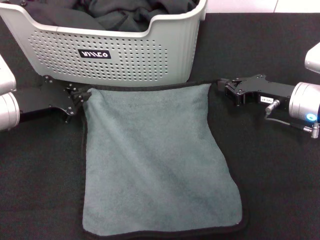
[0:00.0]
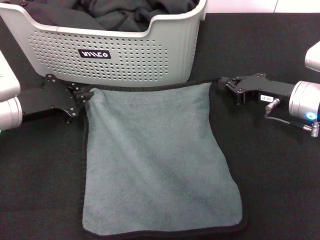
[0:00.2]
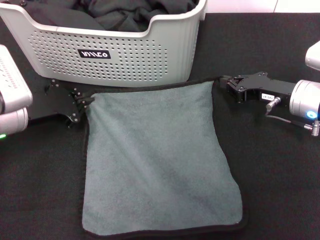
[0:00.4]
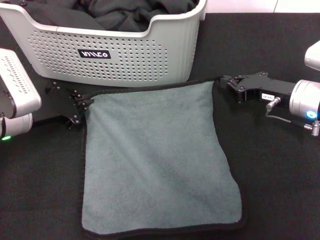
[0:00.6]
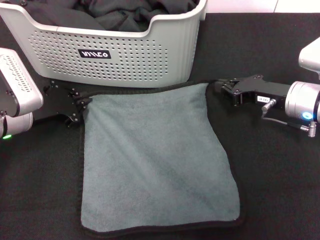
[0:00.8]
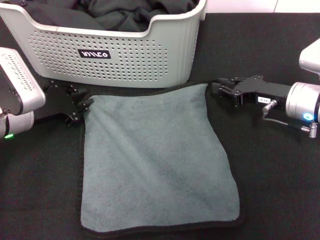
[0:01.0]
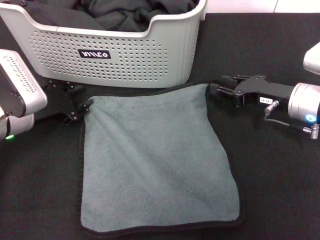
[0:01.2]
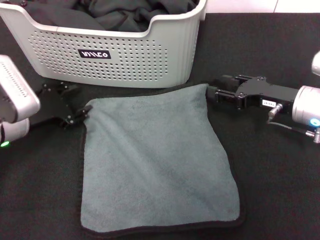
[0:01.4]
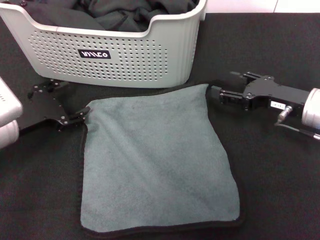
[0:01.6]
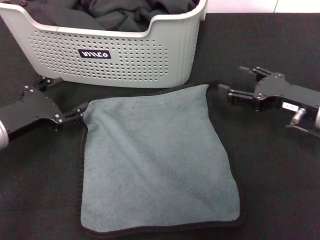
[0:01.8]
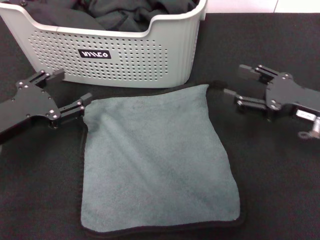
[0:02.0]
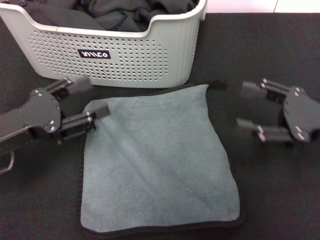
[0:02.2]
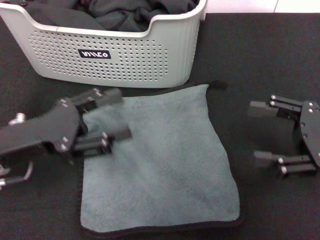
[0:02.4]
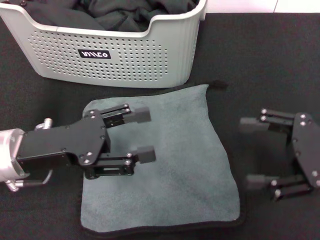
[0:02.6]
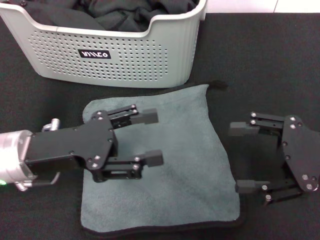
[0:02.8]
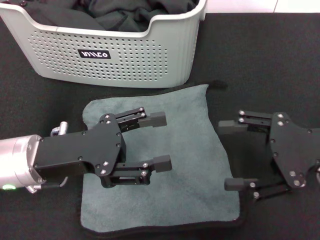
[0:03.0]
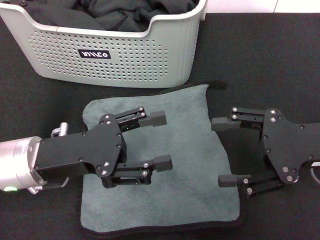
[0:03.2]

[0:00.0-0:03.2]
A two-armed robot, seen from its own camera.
Task of the whole recording: pick up the towel from the storage box and lay it flat on the black tablecloth.
0:00.0 to 0:01.6: The right gripper opens its fingers. The left gripper opens.
0:01.6 to 0:03.2: The right gripper travels backward and upward by some 10 cm, while the left gripper goes roughly 5 cm to the right.

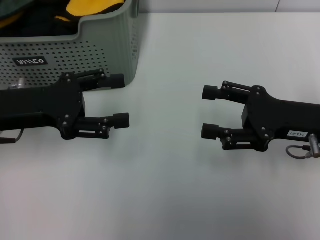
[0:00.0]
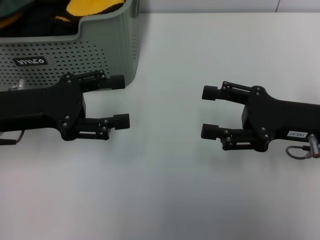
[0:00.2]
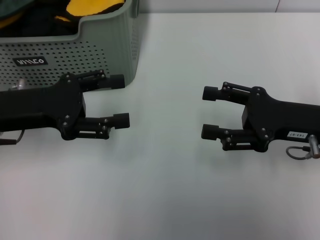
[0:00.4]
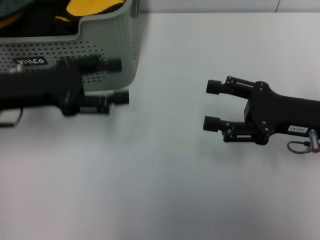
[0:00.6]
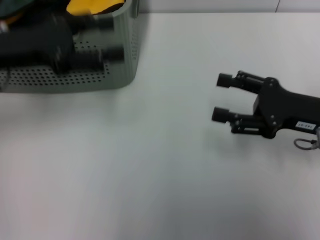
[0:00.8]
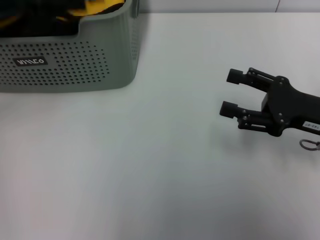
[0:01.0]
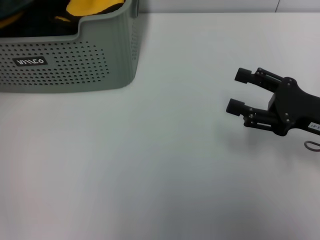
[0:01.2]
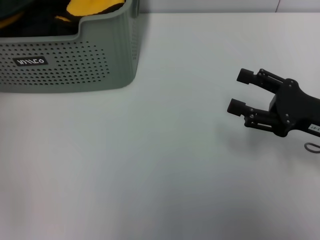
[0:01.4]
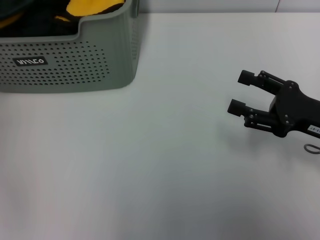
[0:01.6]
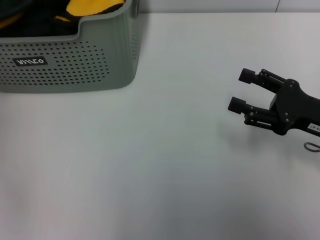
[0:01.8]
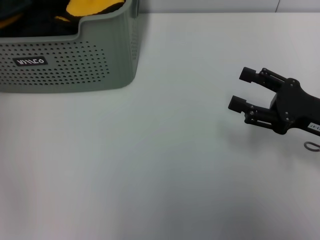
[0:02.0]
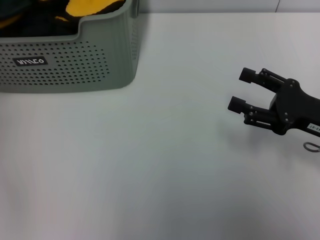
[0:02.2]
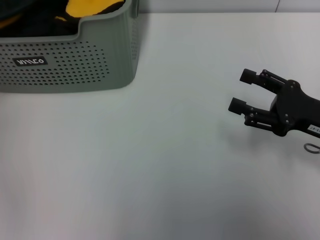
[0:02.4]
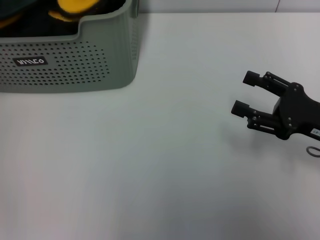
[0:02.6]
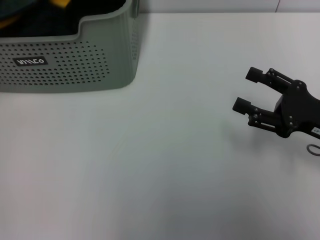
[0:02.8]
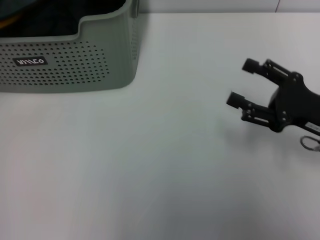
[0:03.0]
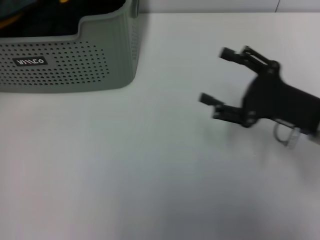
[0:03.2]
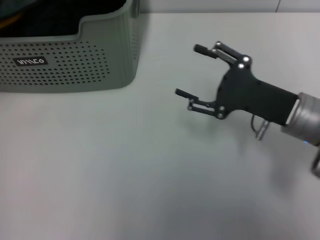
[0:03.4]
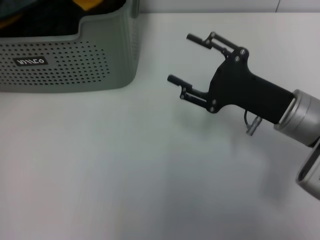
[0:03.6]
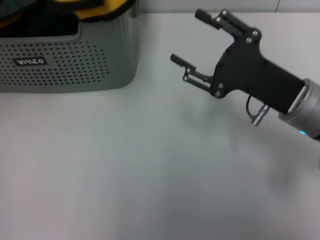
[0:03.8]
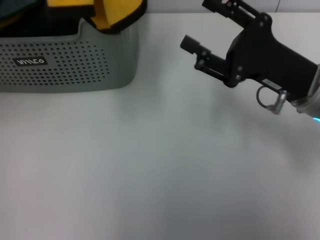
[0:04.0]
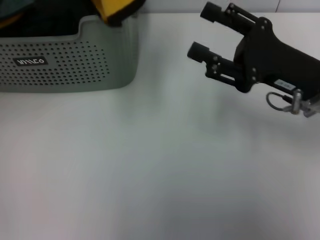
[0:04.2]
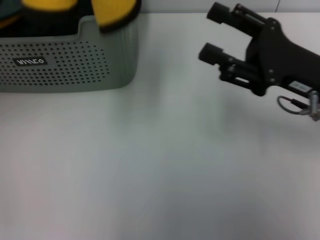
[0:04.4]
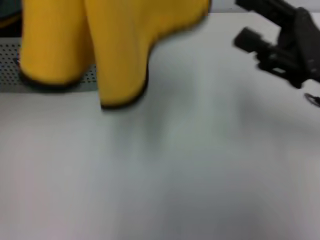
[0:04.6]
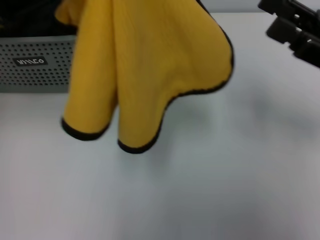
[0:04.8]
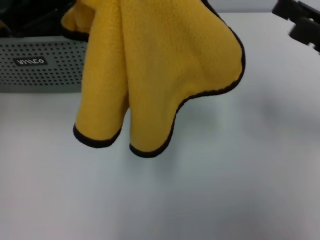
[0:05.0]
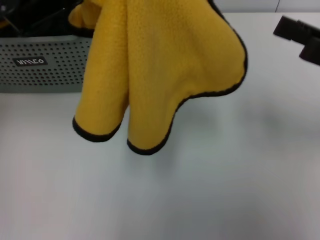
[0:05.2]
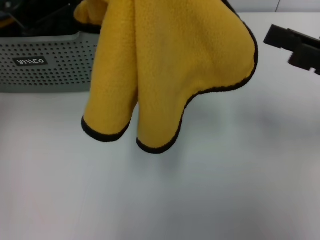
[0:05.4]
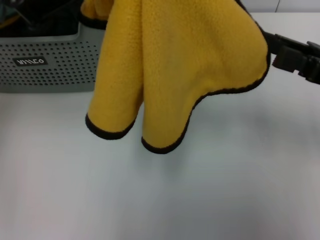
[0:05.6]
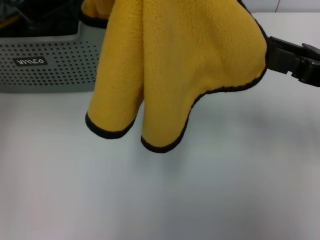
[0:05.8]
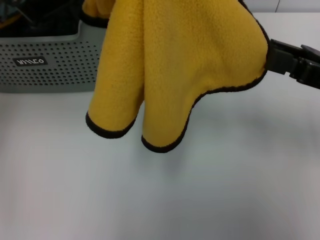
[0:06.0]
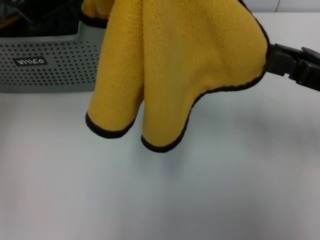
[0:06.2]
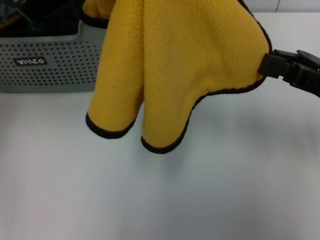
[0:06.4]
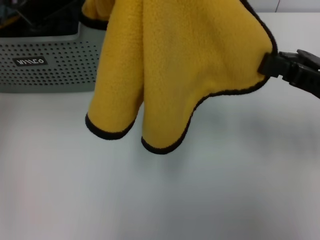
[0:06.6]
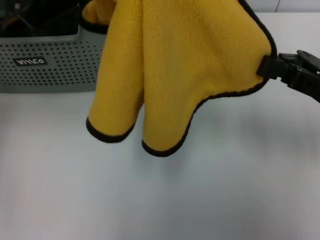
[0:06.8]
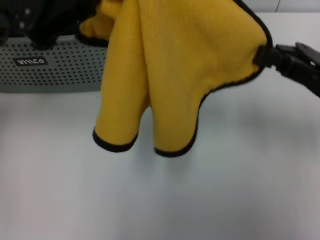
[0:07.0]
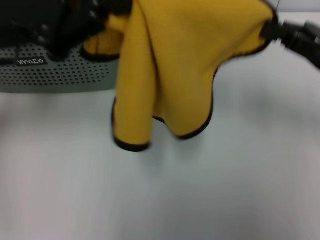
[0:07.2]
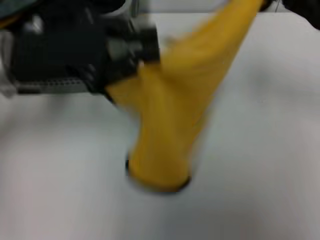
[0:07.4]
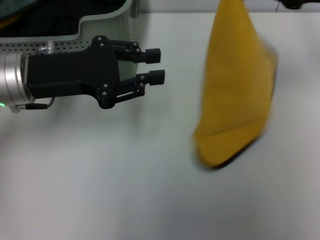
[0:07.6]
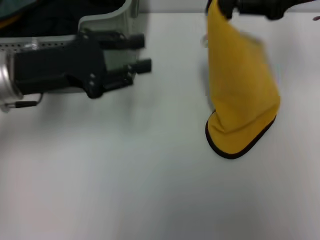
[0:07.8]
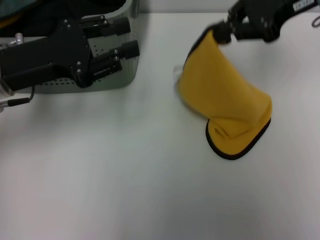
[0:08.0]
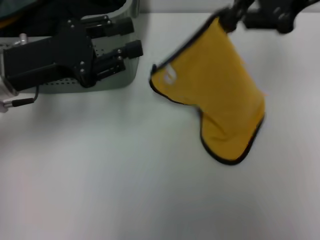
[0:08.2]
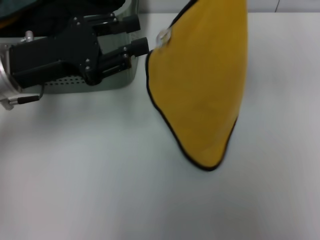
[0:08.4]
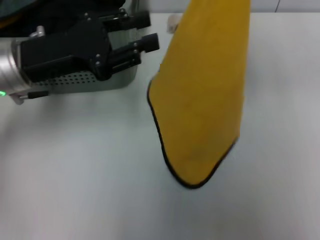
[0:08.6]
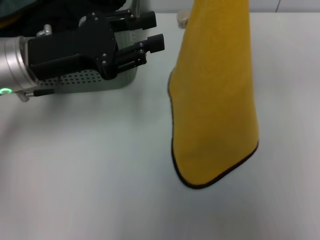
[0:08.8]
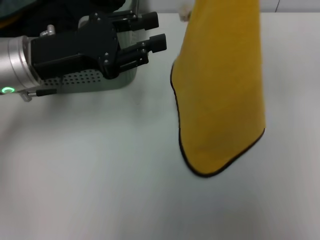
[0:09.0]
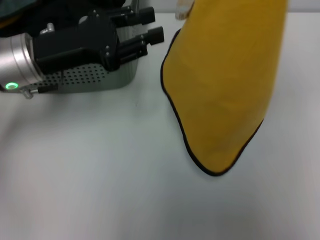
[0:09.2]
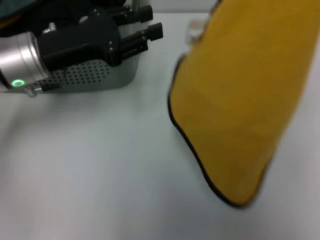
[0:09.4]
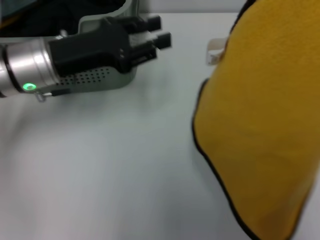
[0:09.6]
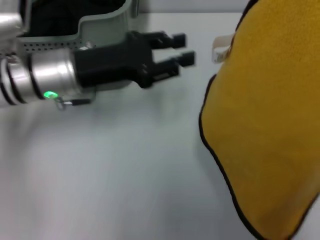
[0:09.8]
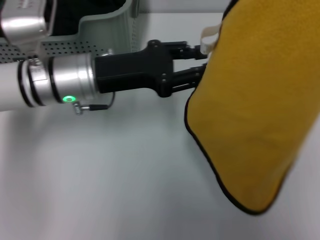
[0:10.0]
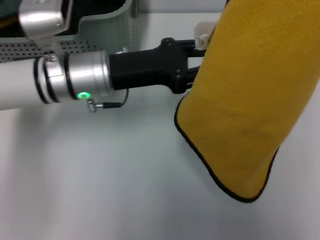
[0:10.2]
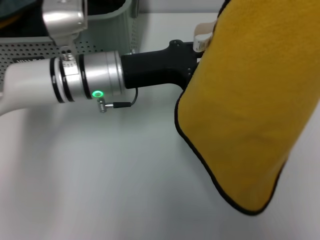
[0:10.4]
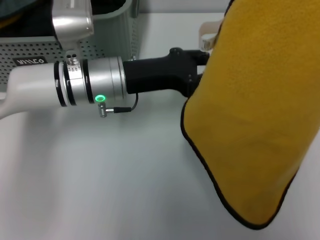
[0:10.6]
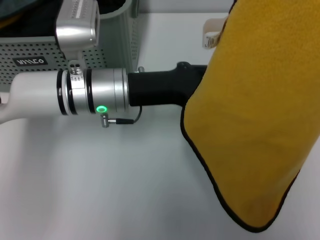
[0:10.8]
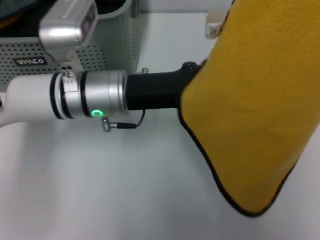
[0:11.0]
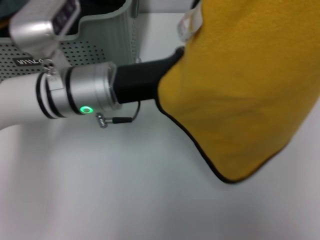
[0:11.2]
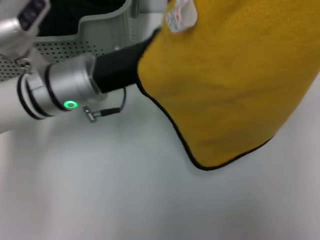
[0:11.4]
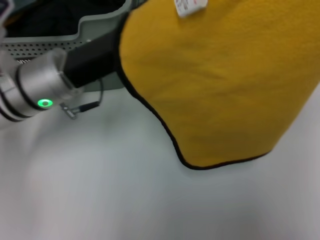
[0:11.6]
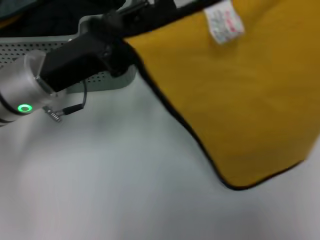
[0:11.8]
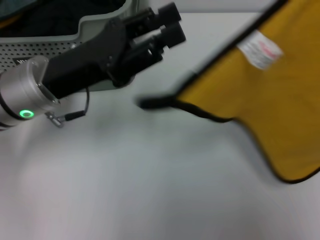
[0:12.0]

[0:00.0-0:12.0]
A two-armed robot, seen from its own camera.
Task of the whole recording: pick up the towel from the storage box and lay it flat on the table.
Step, 0:00.0 to 0:02.2: Pick up a towel with the left gripper.
Step, 0:02.6 to 0:06.6: Spread the towel flat with the left gripper.
0:00.0 to 0:01.6: The left gripper travels forward and upward by roughly 15 cm.
0:01.6 to 0:03.0: The left gripper moves backward and upward, about 10 cm, and closes.
0:03.0 to 0:04.4: The right gripper heads upward and to the left, covering roughly 5 cm.
0:04.4 to 0:06.0: The two grippers go roughly 5 cm to the right.
0:06.0 to 0:07.6: The left gripper is displaced downward by some 10 cm. The right gripper heads forward and upward, covering some 10 cm, and closes up.
0:07.6 to 0:09.0: The right gripper heads upward, covering roughly 10 cm.
0:09.0 to 0:10.4: The left gripper goes roughly 10 cm to the right.
0:10.4 to 0:12.0: The right gripper goes roughly 5 cm to the right, while the left gripper heads to the left and backward, covering roughly 10 cm.

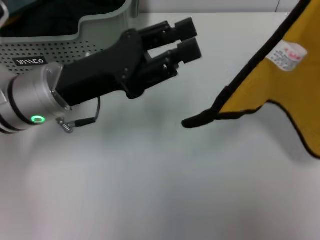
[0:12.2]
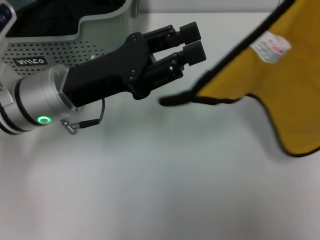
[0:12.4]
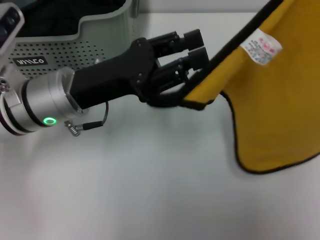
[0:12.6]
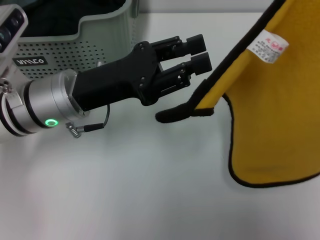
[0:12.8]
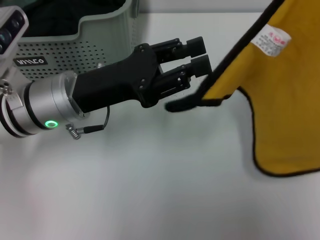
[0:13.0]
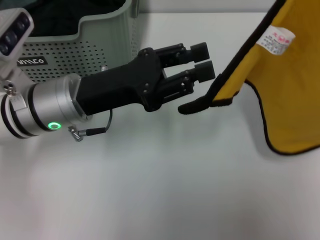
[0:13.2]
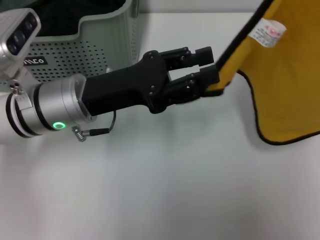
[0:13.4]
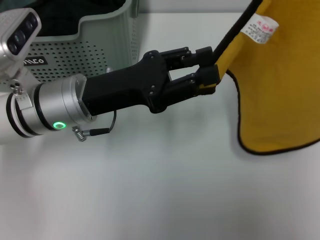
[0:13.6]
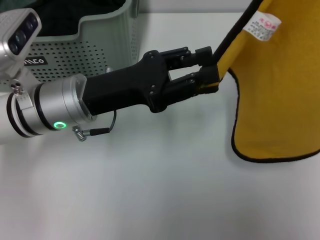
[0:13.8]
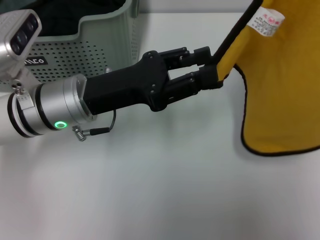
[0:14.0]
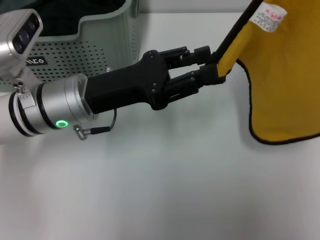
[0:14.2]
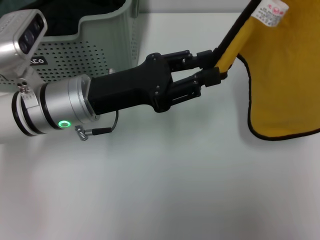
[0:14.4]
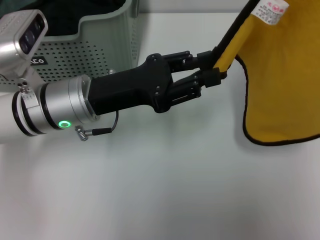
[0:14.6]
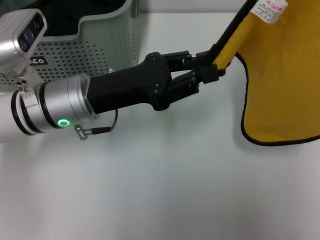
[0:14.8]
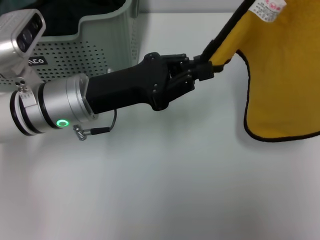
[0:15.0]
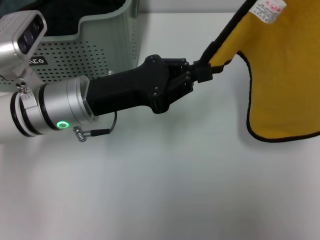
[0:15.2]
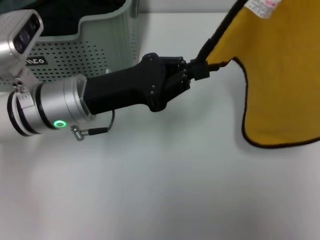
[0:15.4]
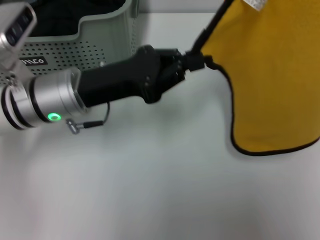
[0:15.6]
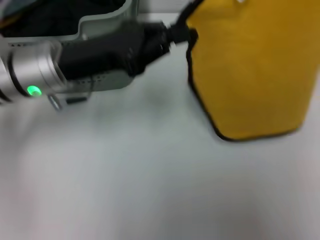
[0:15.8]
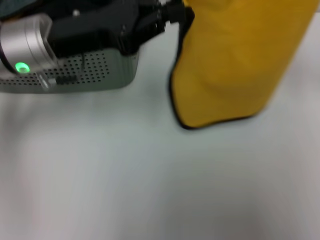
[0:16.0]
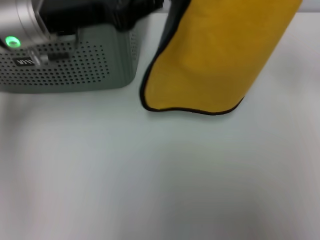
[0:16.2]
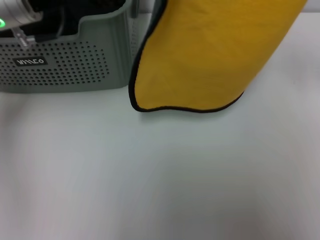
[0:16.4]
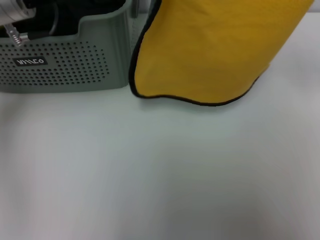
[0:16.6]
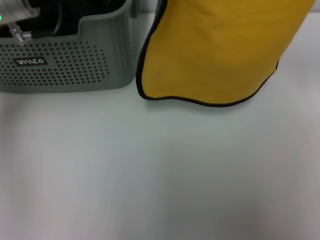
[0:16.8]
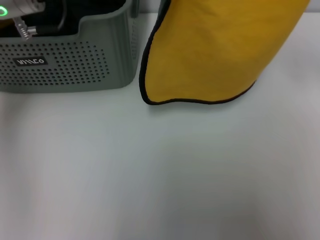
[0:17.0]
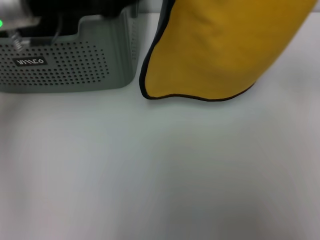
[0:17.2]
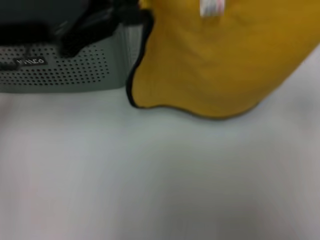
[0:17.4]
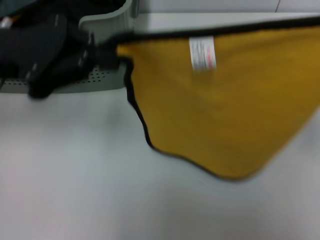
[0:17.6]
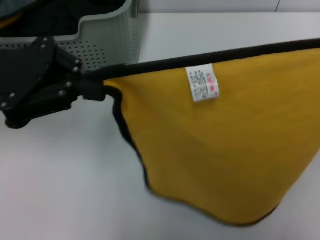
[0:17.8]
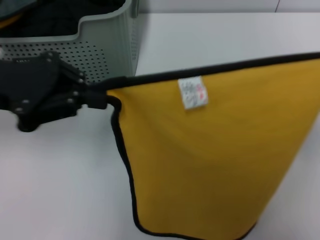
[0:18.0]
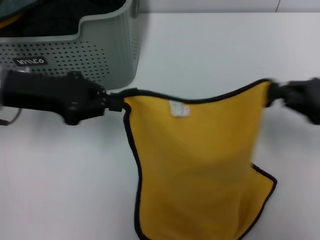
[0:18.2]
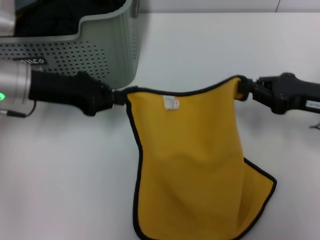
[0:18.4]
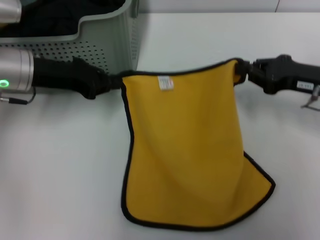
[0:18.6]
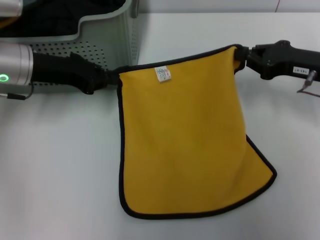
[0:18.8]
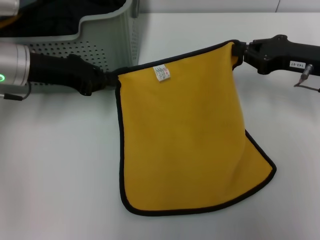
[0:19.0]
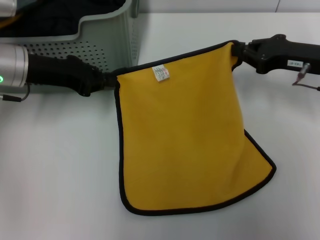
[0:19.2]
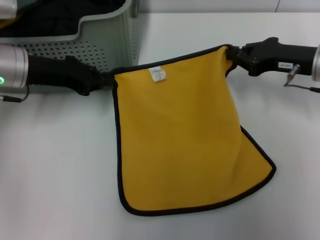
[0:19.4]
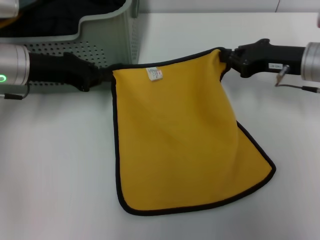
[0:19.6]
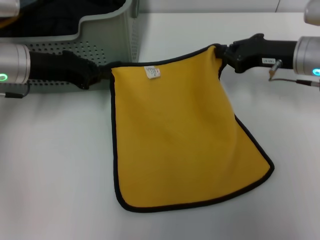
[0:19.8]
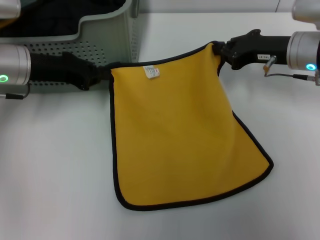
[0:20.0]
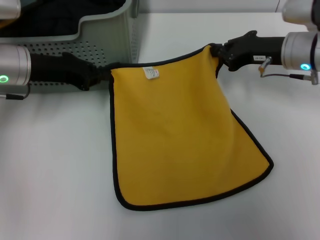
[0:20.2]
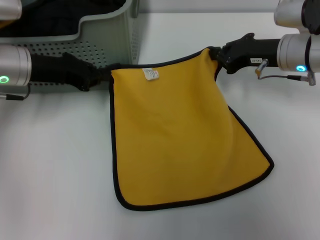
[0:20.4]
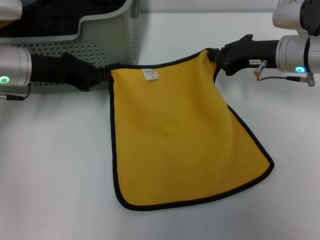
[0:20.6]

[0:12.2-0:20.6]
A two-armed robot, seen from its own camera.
Task of the whole recording: pick up the towel from the storage box and lay it flat on the table.
0:13.6 to 0:15.0: Neither gripper changes place.
0:15.0 to 0:16.4: The right gripper is displaced downward by about 5 cm; the left gripper heads upward and forward, covering some 10 cm, and closes.
0:16.4 to 0:17.8: The right gripper is displaced backward by approximately 10 cm; the left gripper is displaced backward and to the left by roughly 10 cm.
0:17.8 to 0:19.2: The right gripper travels forward, to the left and downward by roughly 20 cm. Meanwhile the left gripper travels forward and downward by approximately 10 cm.
0:19.2 to 0:20.6: The right gripper is displaced to the left by about 5 cm.
